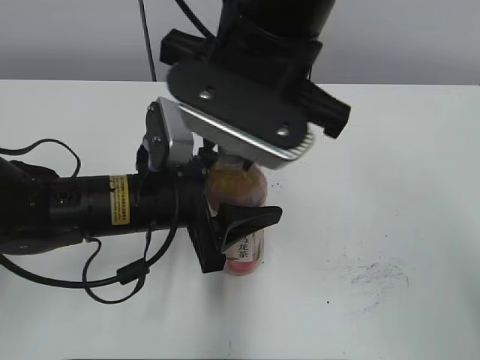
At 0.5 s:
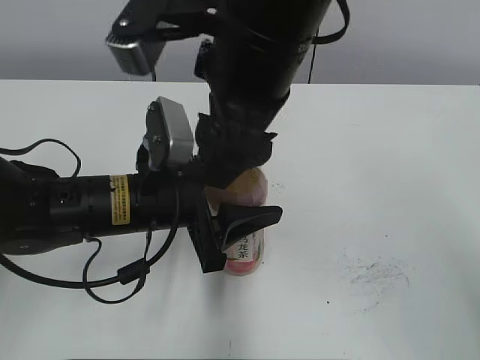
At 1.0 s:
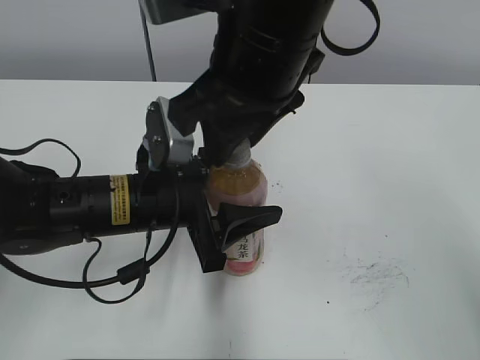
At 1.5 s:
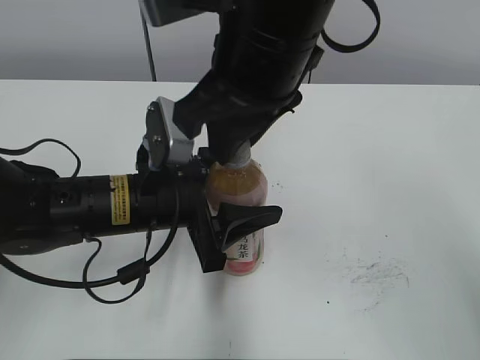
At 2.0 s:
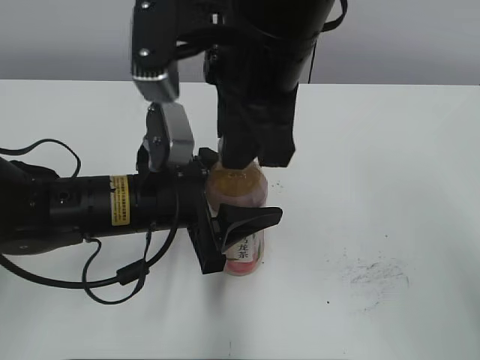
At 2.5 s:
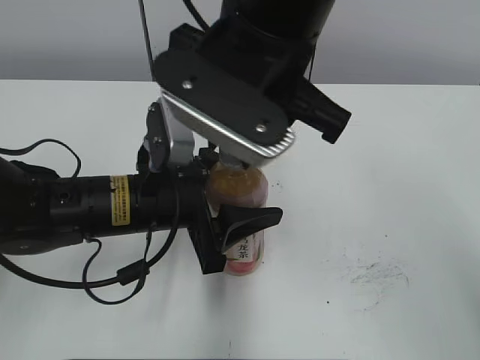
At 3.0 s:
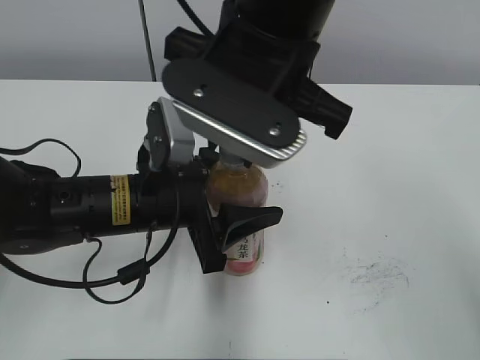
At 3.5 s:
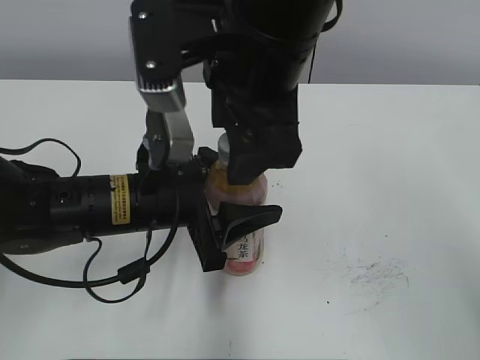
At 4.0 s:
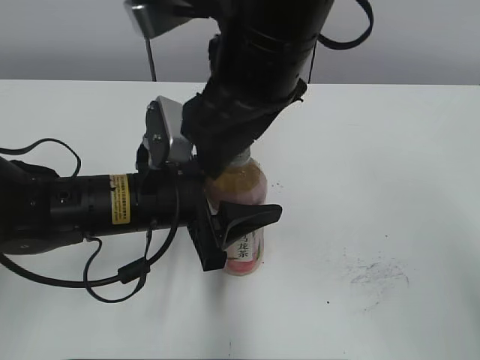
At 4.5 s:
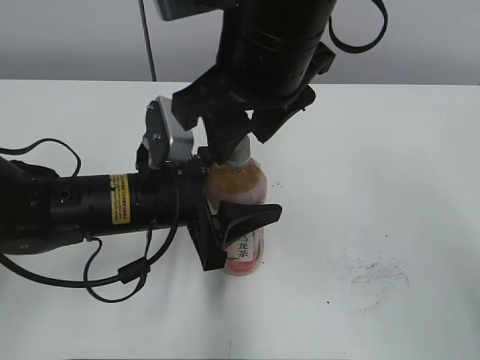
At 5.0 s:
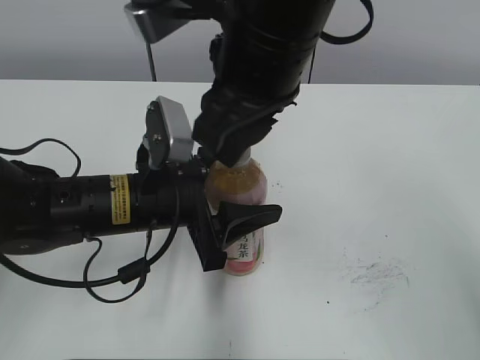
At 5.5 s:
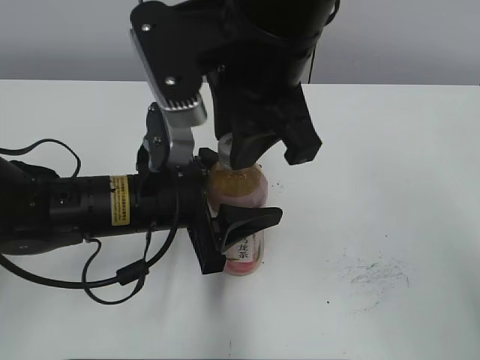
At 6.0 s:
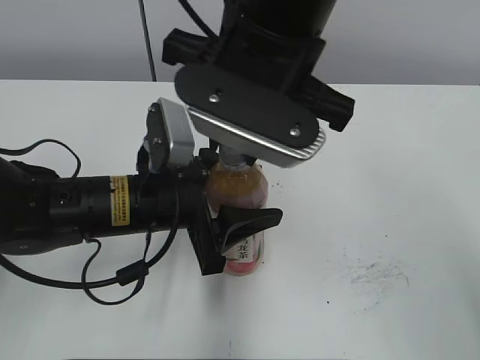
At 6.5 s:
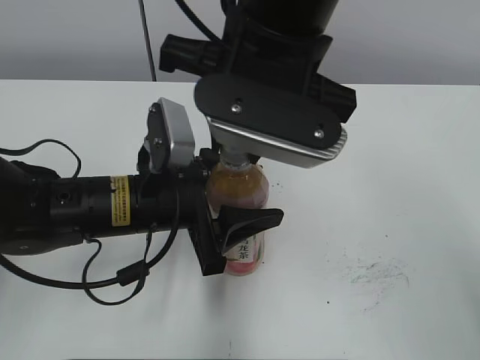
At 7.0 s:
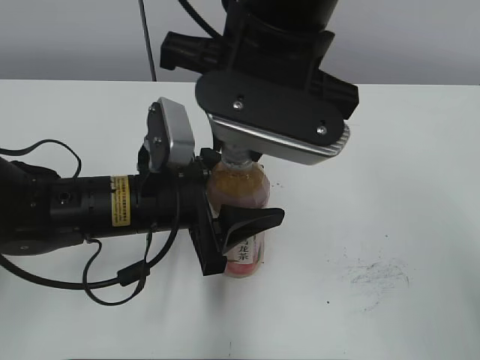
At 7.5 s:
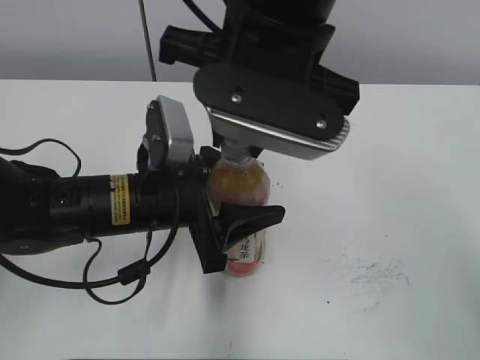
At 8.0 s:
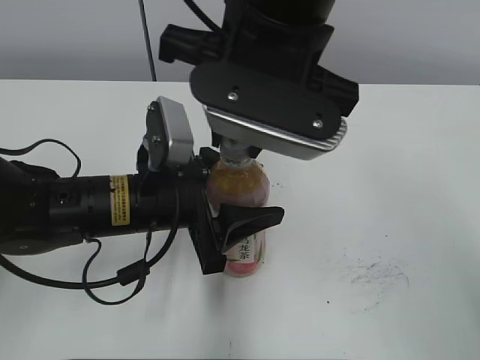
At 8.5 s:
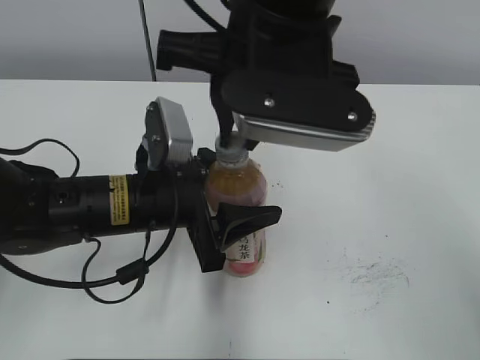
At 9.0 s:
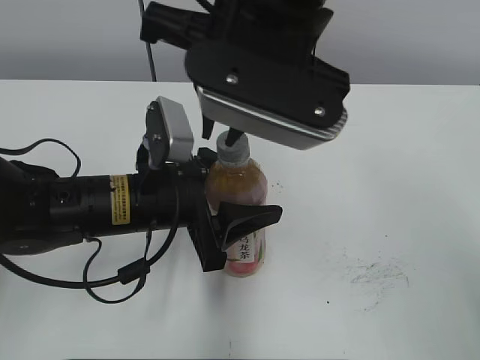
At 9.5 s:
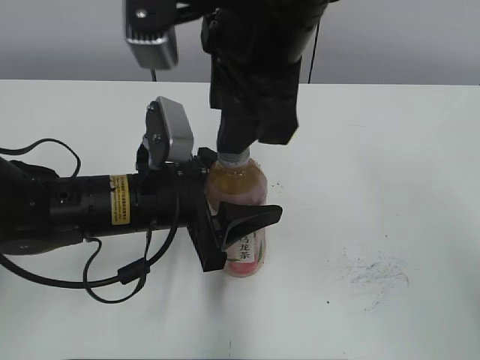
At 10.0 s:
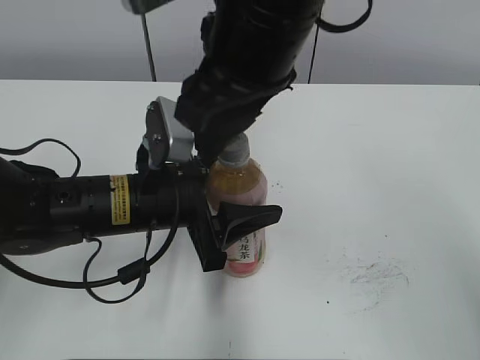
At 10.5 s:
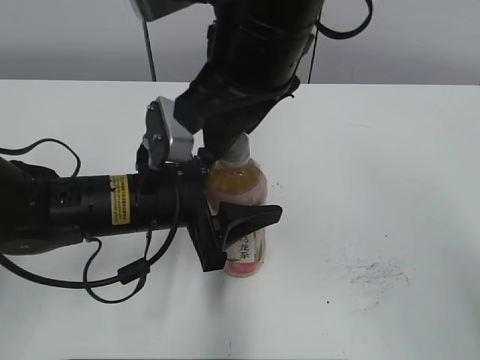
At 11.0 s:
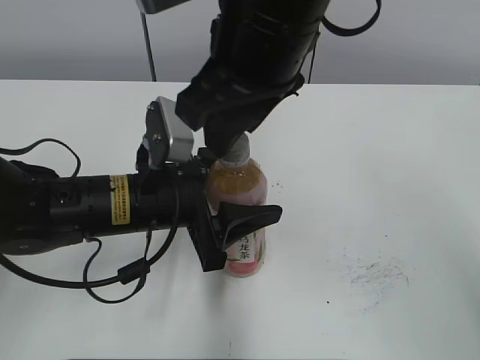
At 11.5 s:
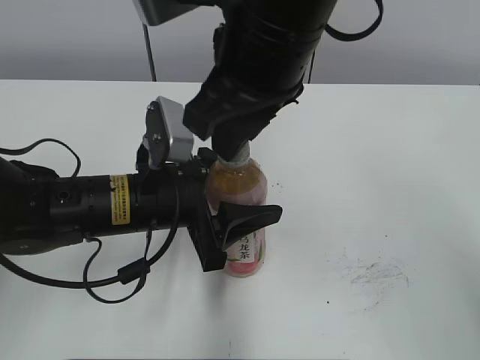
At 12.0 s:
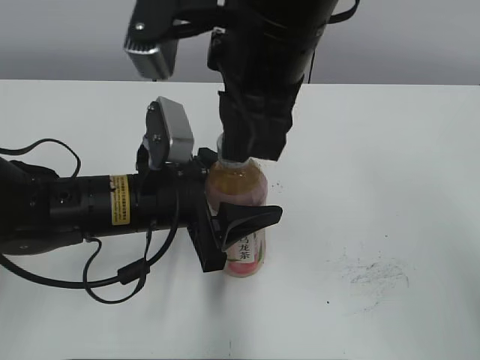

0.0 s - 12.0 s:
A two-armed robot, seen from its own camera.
0.0 s - 2.0 s: The right gripper opens, then closes again.
2.0 s - 4.0 s: The right gripper opens.
4.0 s - 6.0 s: The right gripper closes.
6.0 s - 8.0 s: There are only small adjustments of the grippers.
8.0 s - 10.0 s: The right gripper opens up.
10.0 s - 12.0 s: The right gripper closes up.

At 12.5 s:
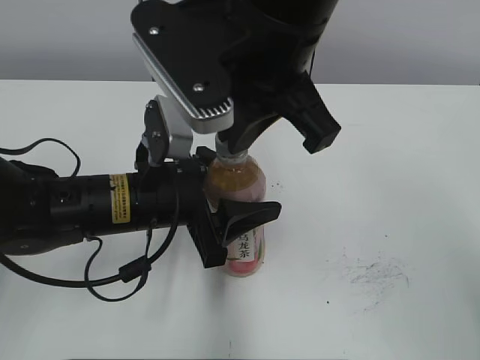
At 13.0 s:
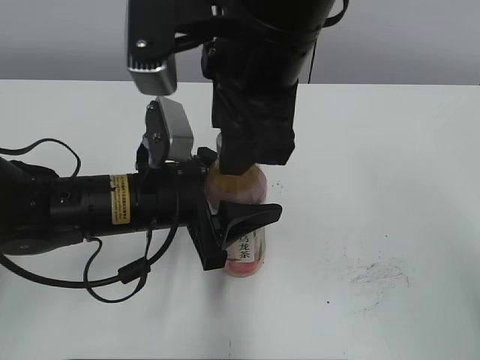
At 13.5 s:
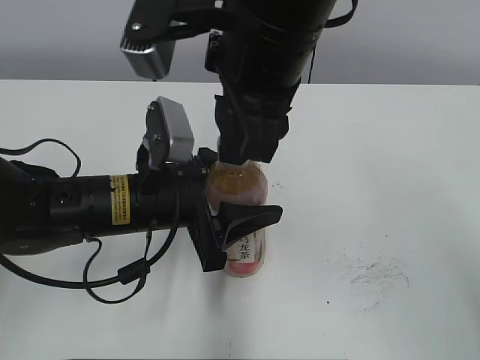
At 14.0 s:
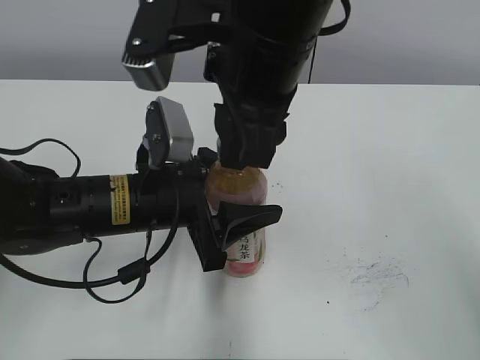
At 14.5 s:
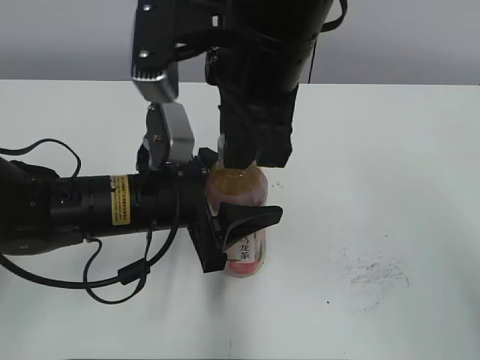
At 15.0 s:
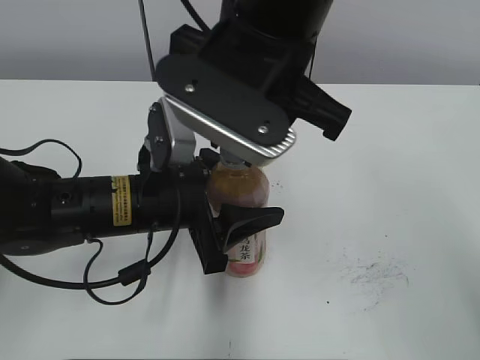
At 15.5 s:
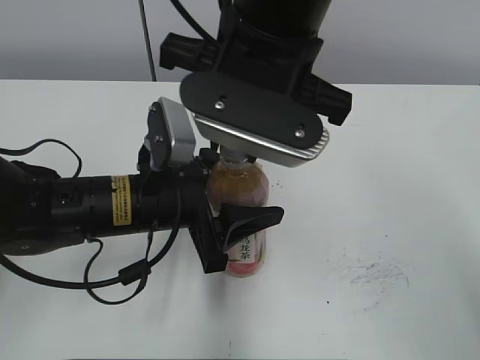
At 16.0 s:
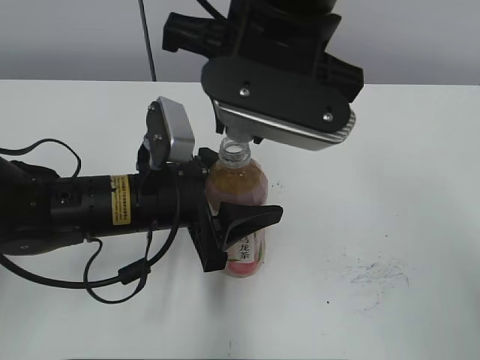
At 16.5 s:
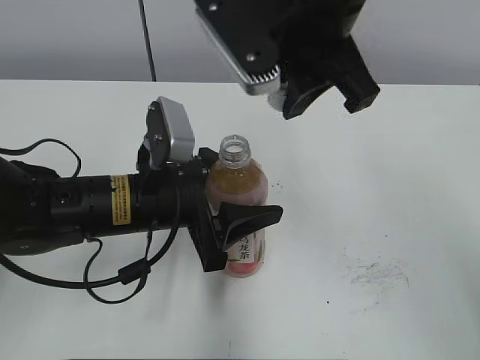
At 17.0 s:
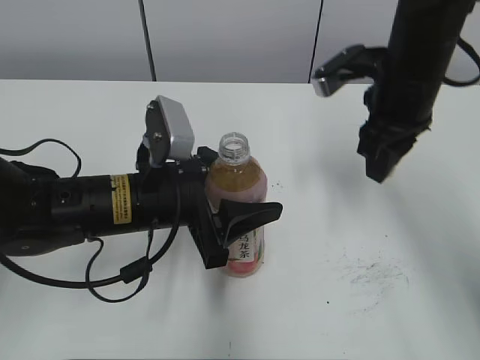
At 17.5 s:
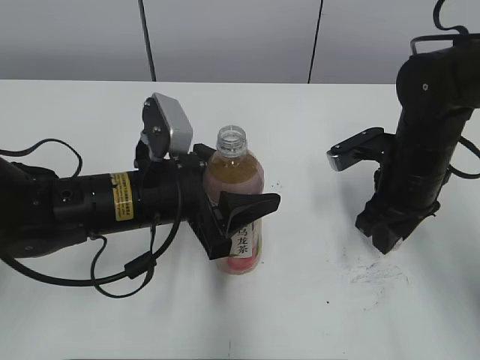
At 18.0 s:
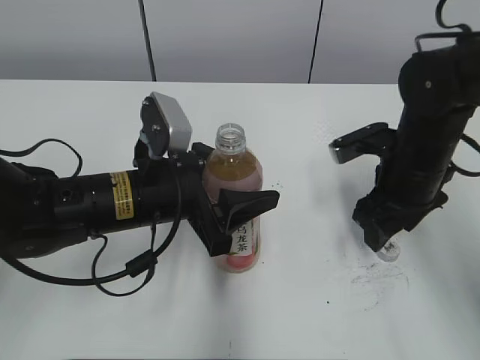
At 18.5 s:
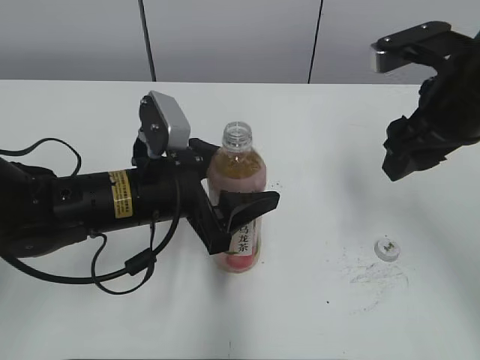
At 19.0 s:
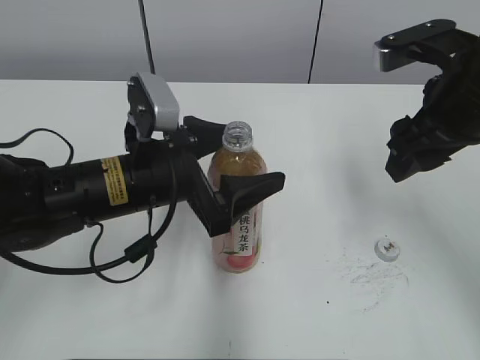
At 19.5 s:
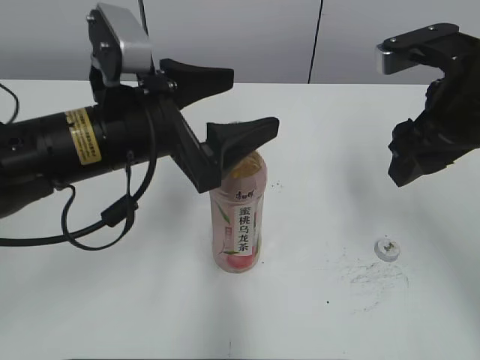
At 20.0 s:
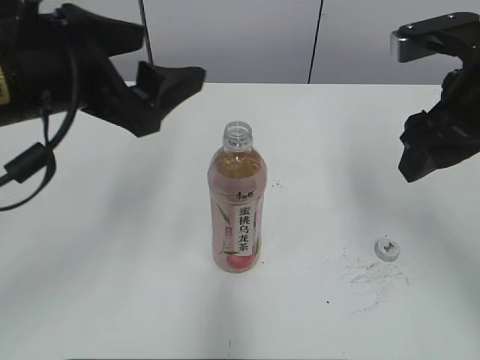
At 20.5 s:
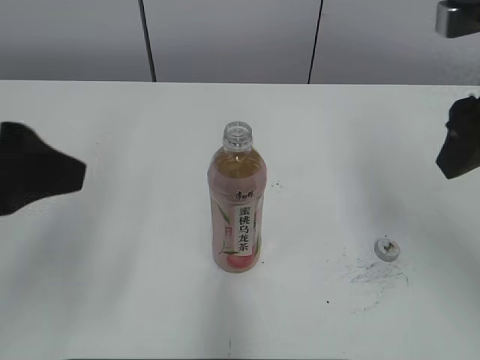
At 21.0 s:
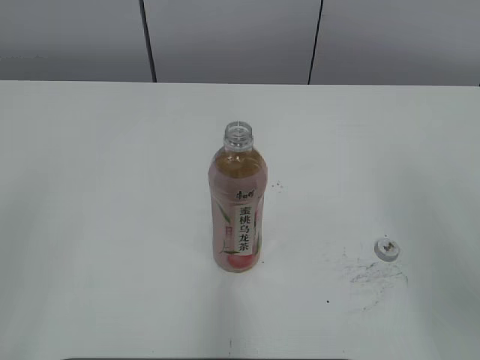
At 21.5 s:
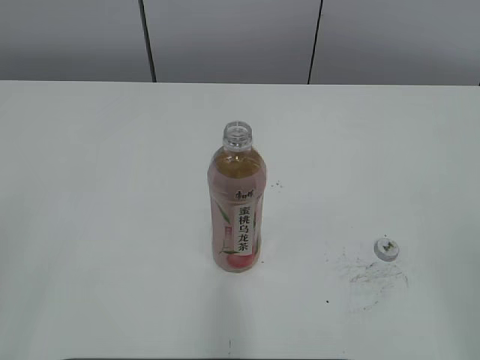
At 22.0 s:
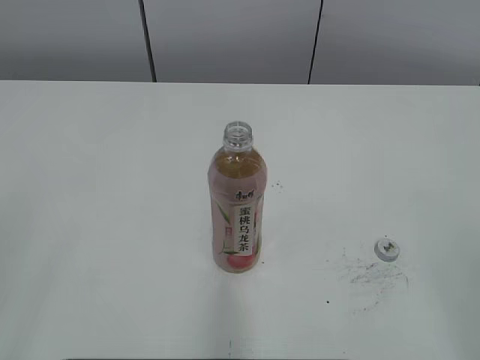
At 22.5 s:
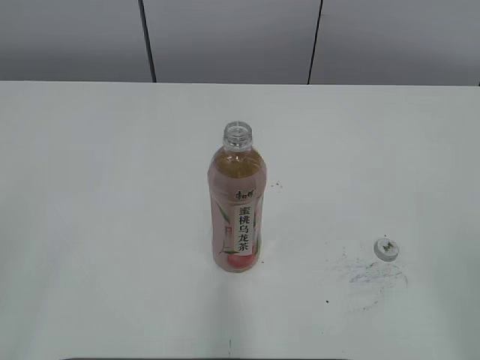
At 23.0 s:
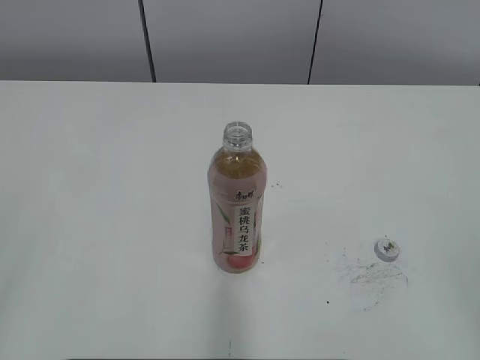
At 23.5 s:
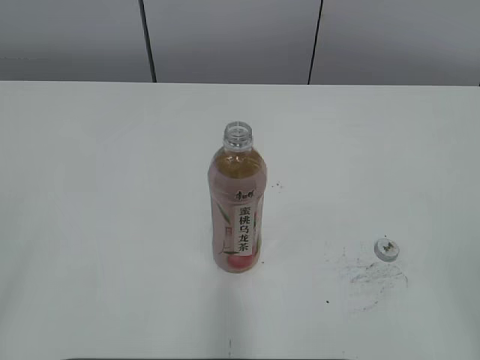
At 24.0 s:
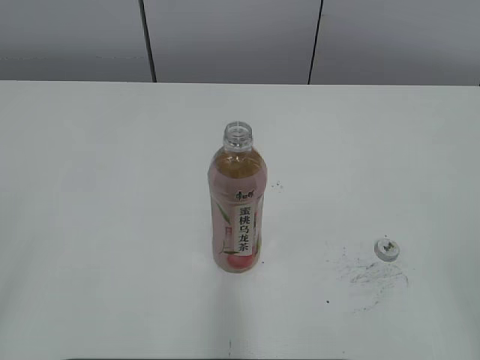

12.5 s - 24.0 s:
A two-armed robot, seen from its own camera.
Step, 16.0 s - 17.5 s: Place the bottle cap on the right.
12.5 s - 14.5 s: The right gripper opens, then closes again.
16.5 s - 18.5 s: The right gripper heads to the right and downward, covering some 15 cm, and opens up.
18.5 s - 20.0 s: The left gripper heads upward, covering roughly 15 cm.
20.0 s - 22.0 s: The right gripper goes about 25 cm backward. Meanwhile the left gripper heads backward and to the left, covering roughly 30 cm.

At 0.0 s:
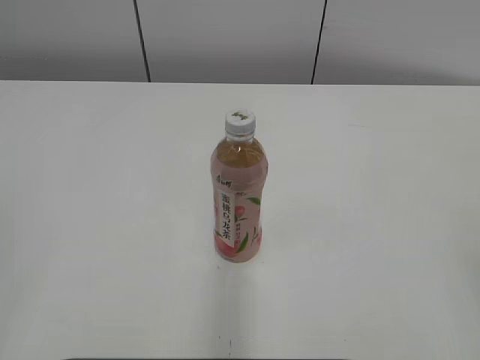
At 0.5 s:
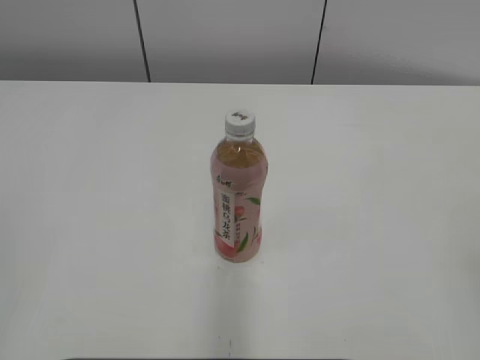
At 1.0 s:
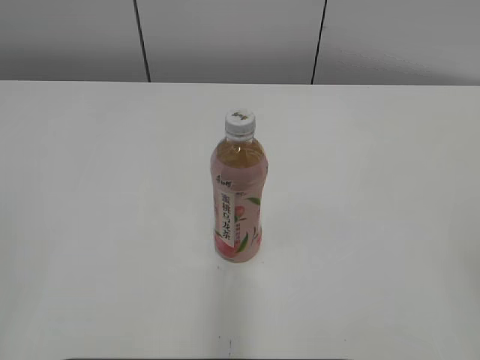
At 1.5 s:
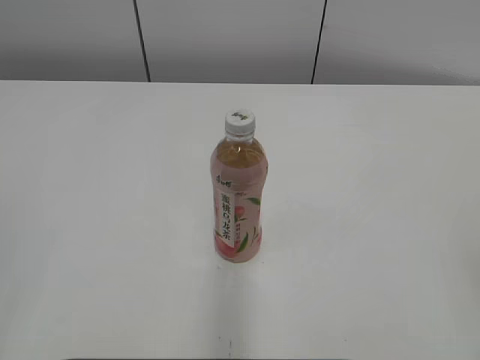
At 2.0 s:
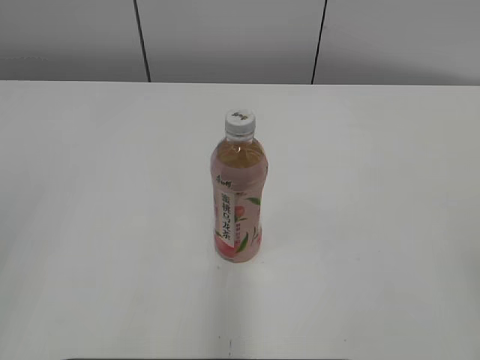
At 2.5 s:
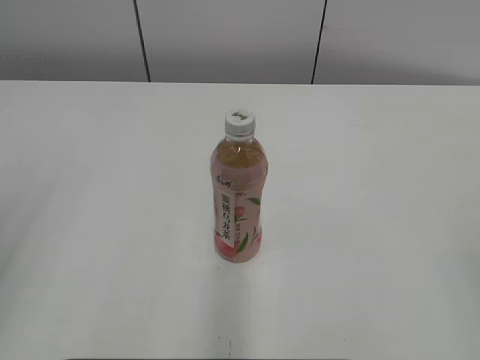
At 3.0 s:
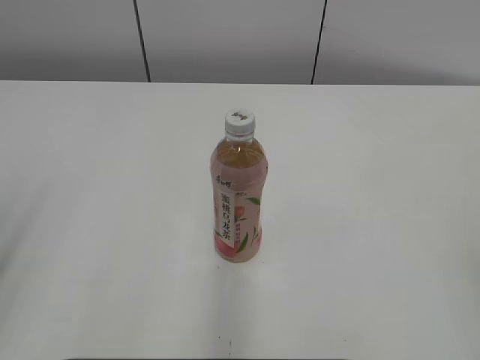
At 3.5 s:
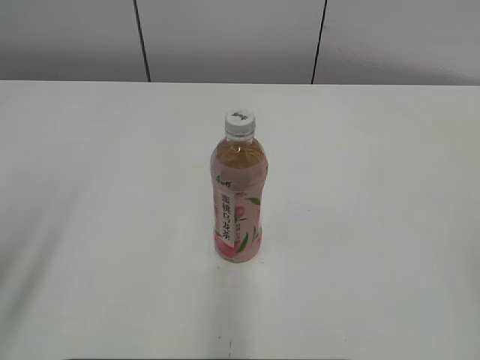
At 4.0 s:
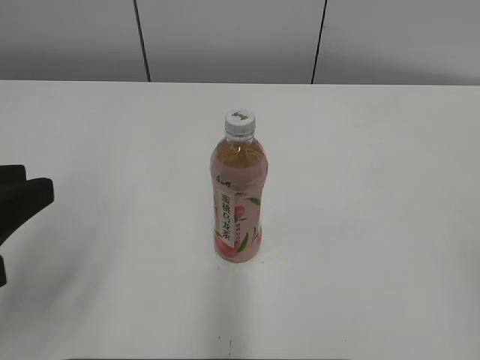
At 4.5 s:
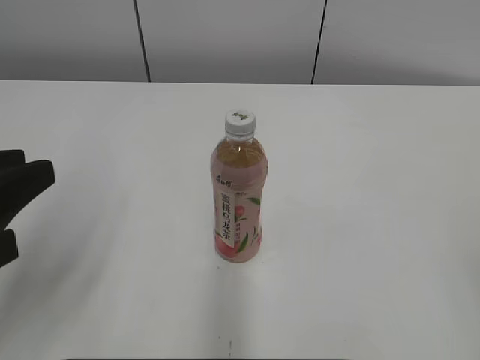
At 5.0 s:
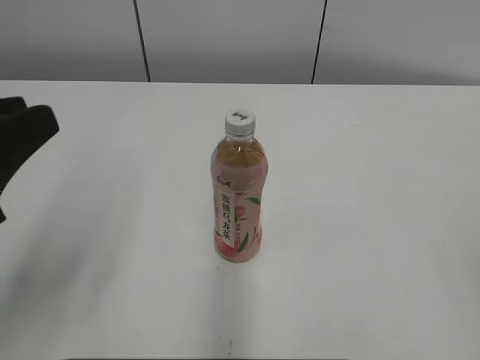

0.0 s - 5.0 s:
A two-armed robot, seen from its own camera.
2.5 s - 5.0 s: The left gripper is displaced to the right by approximately 5 cm.
